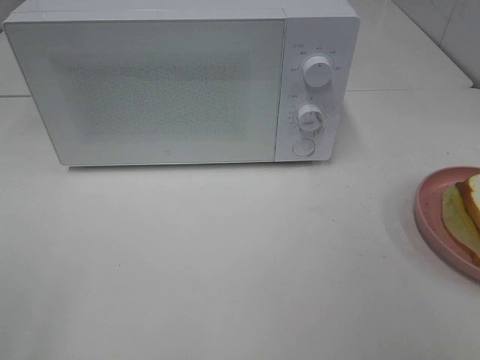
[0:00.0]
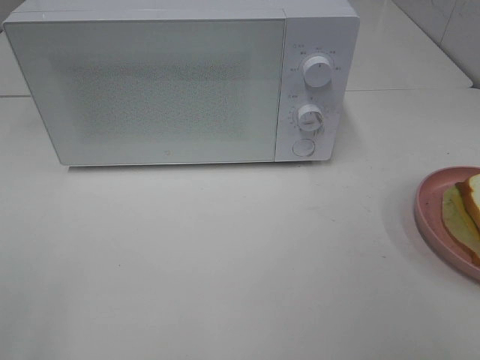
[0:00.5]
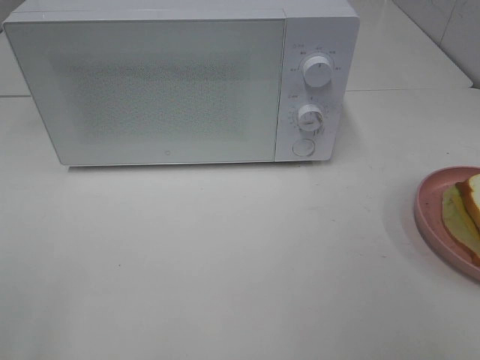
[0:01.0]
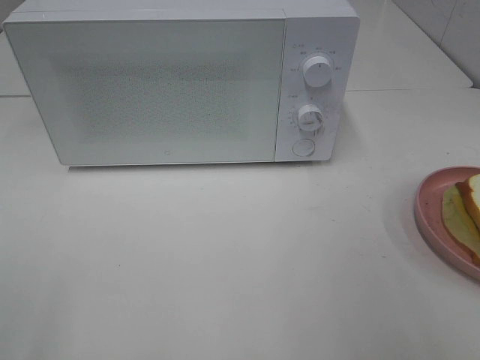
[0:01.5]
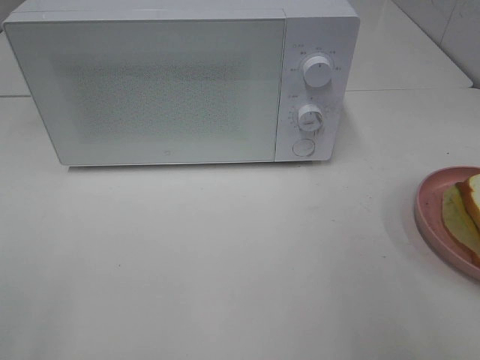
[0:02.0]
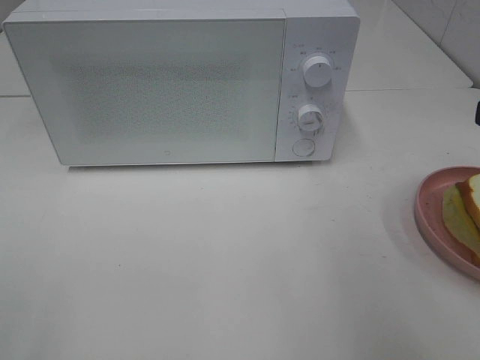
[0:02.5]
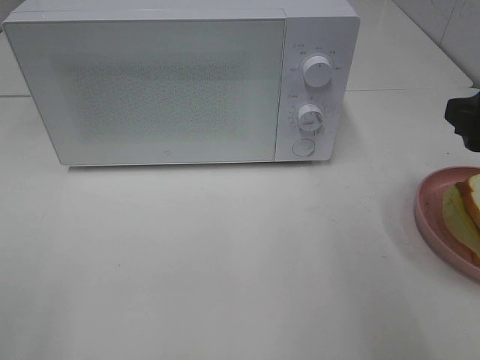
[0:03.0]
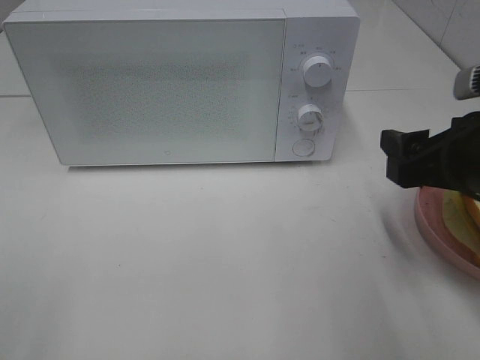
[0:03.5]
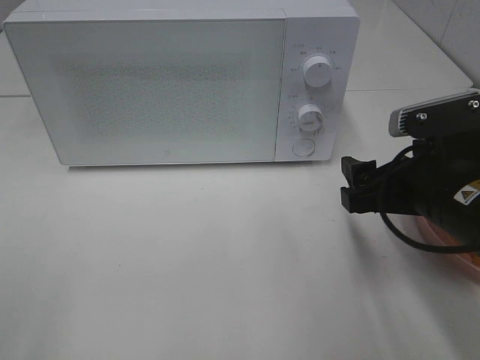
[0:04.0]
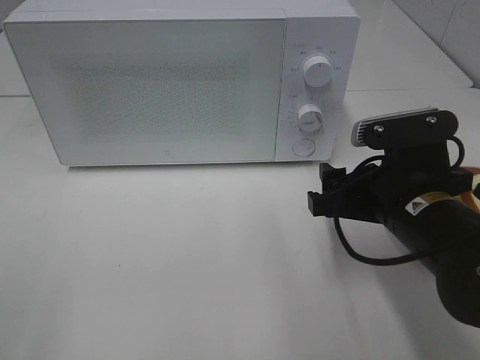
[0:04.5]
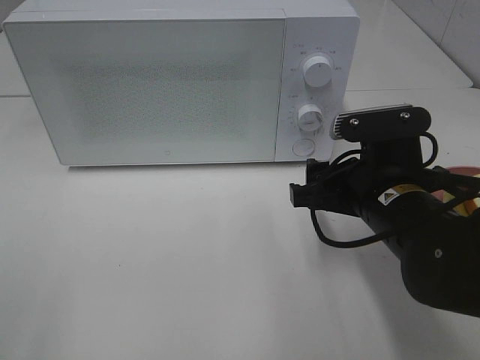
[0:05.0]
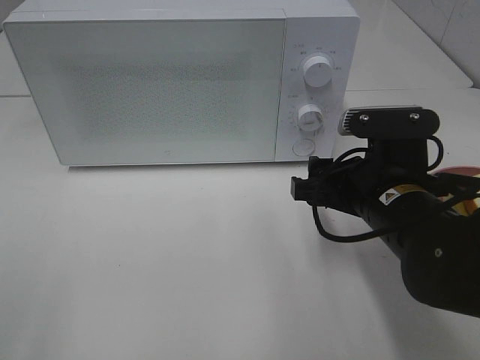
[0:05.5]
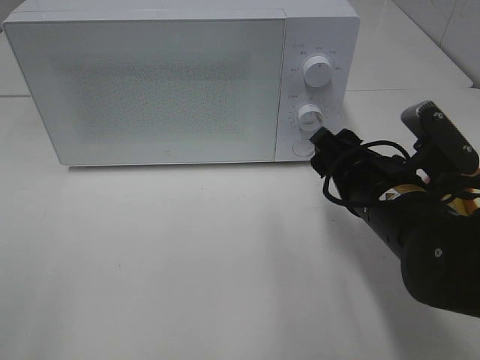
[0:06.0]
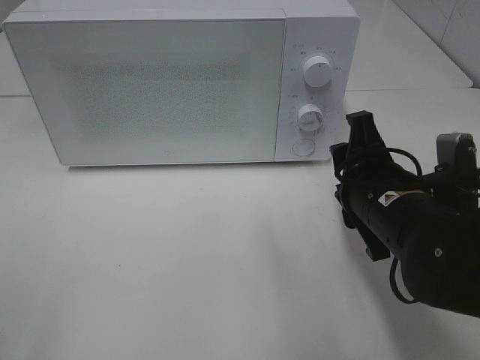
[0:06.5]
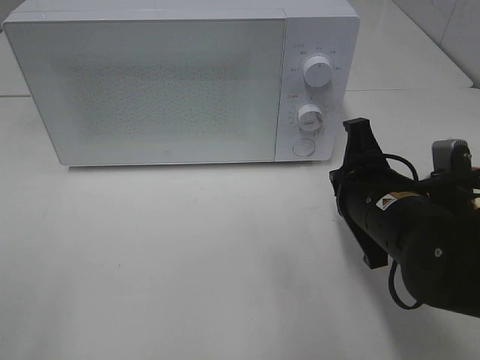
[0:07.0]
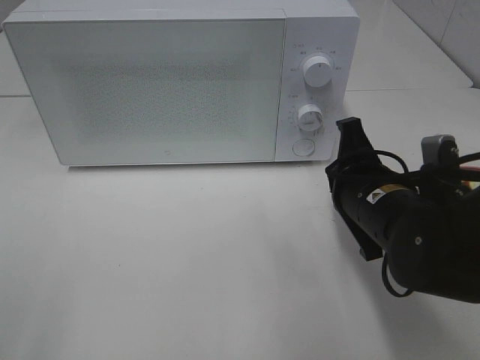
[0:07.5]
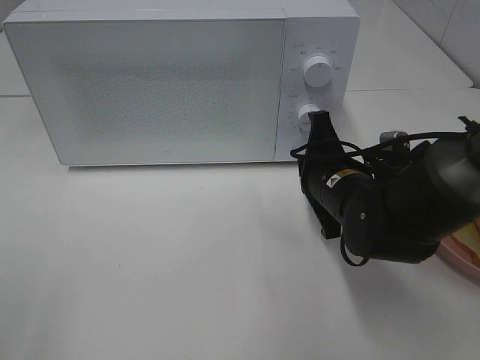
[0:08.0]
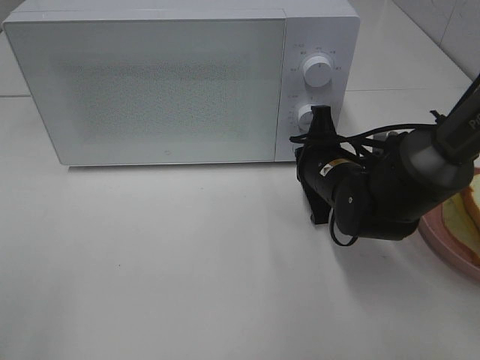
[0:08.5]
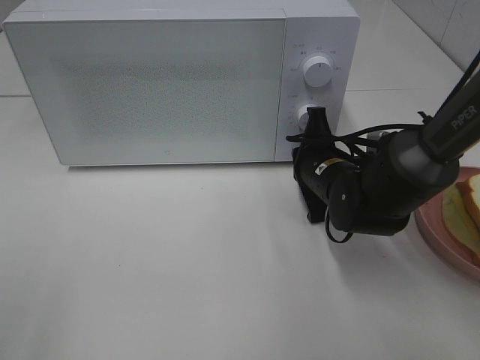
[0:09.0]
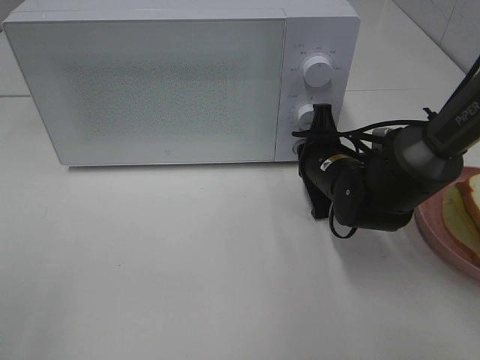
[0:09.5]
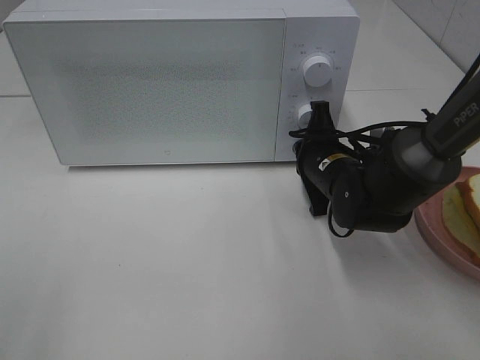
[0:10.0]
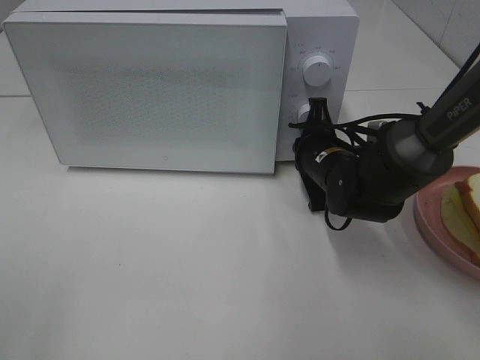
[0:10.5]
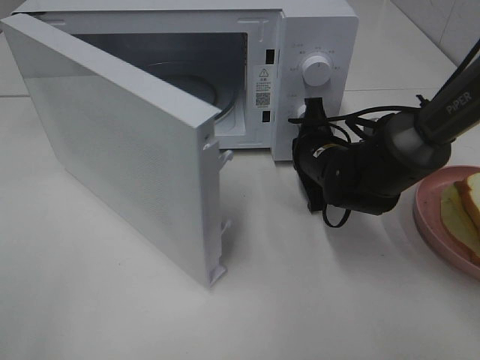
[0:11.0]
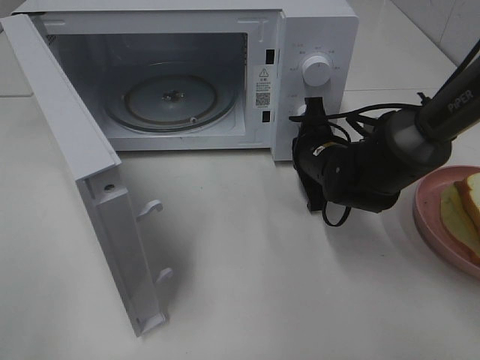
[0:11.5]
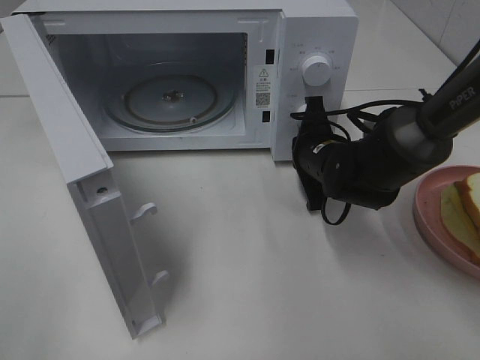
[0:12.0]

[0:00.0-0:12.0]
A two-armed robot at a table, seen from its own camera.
Task of the whole recording: Heat Sandwich.
0:02.0 to 0:04.0: The right gripper heads downward, forward and to the left, covering approximately 20 cm.
0:04.0 to 0:06.0: The right gripper ends up some 5 cm from where it was.
0:06.0 to 0:08.0: The right gripper shifts roughly 5 cm forward, and closes its fingers.
0:08.0 to 0:10.0: The right gripper is displaced forward by roughly 5 cm.

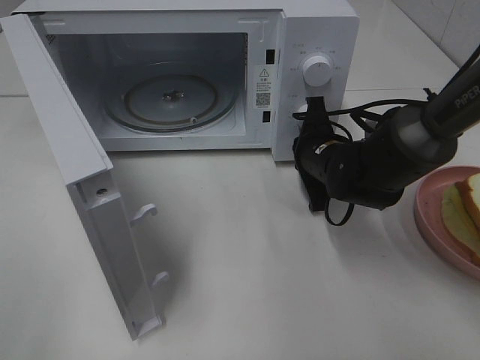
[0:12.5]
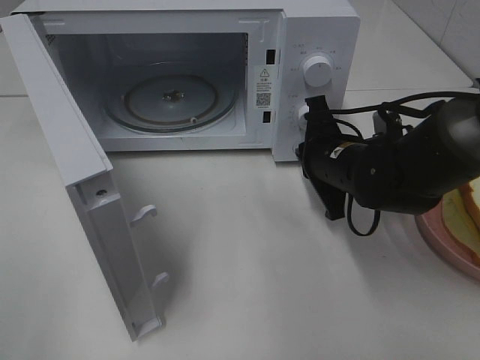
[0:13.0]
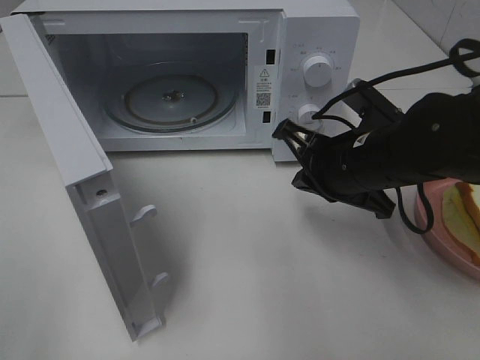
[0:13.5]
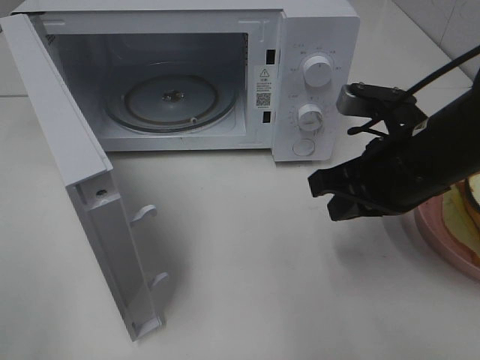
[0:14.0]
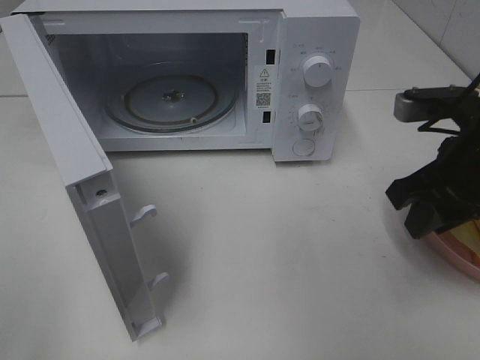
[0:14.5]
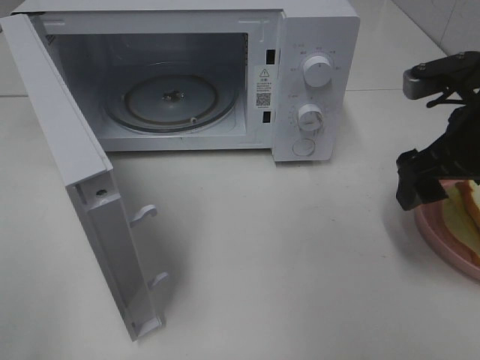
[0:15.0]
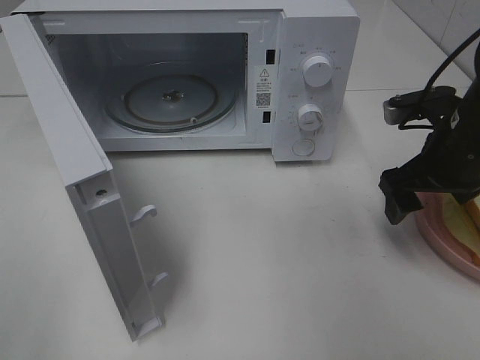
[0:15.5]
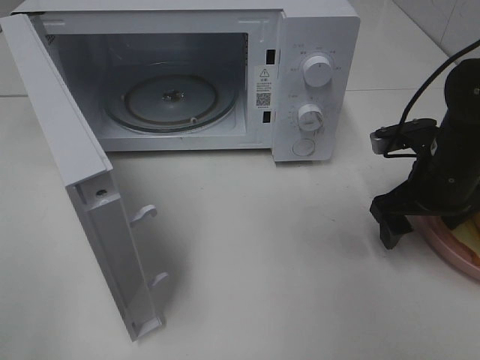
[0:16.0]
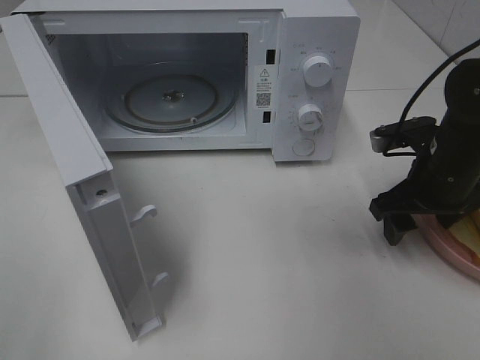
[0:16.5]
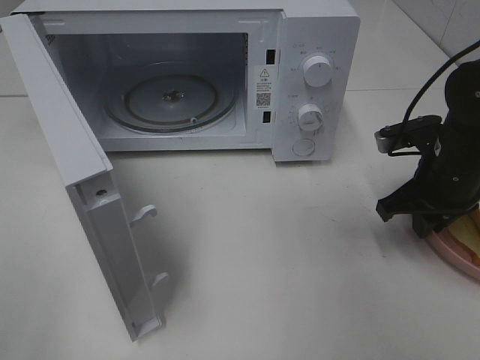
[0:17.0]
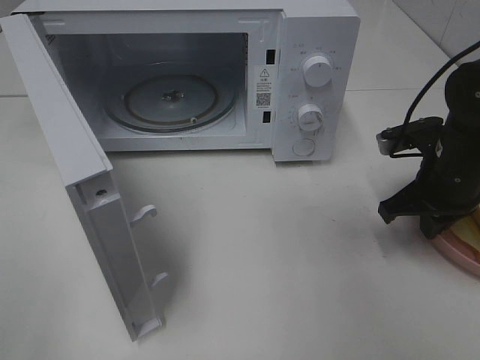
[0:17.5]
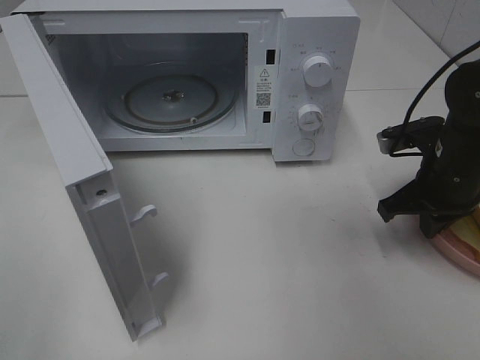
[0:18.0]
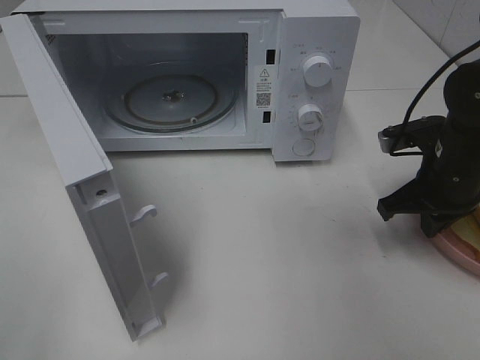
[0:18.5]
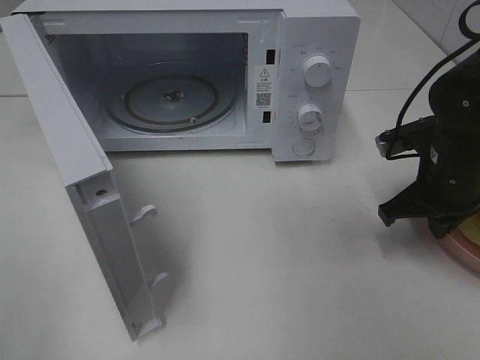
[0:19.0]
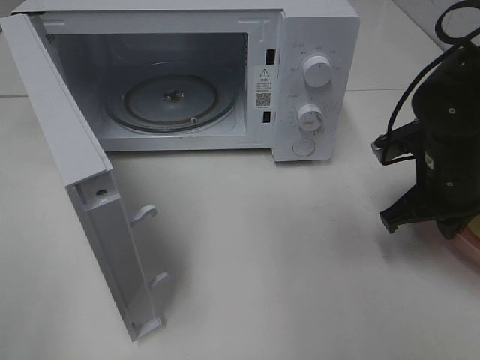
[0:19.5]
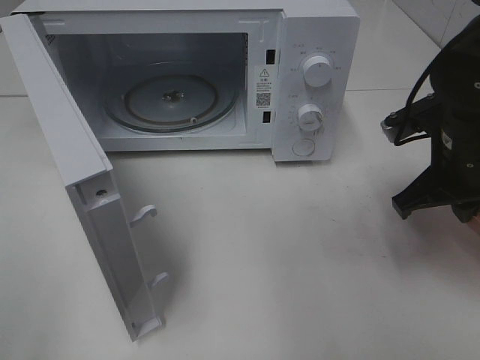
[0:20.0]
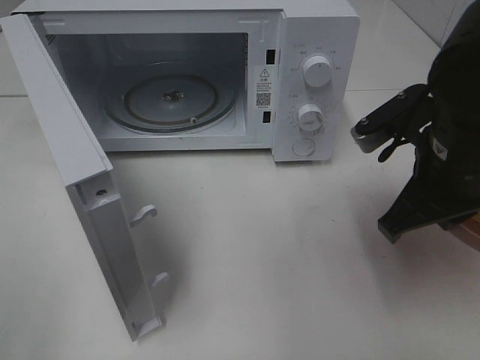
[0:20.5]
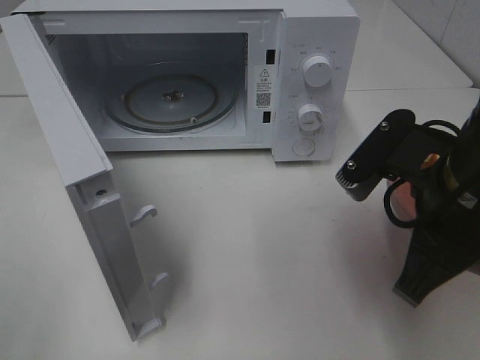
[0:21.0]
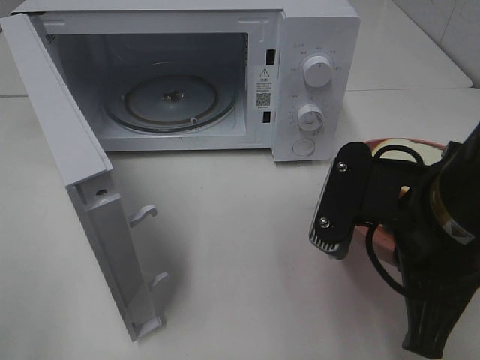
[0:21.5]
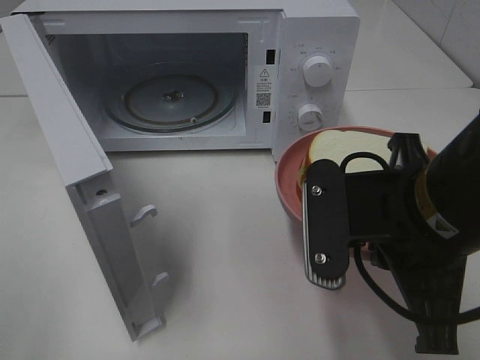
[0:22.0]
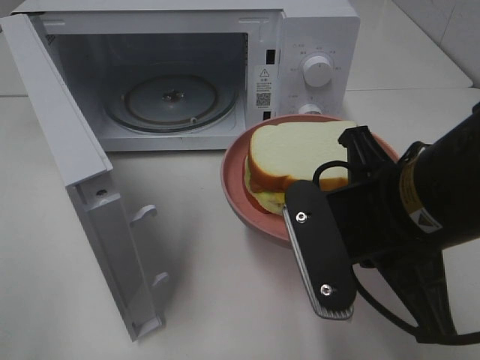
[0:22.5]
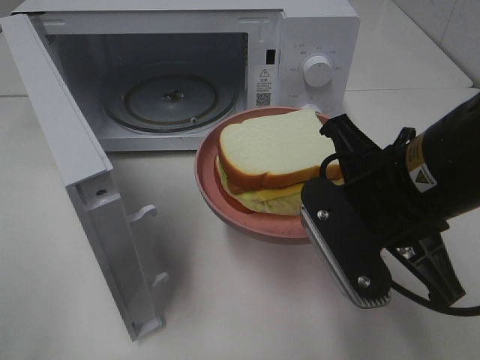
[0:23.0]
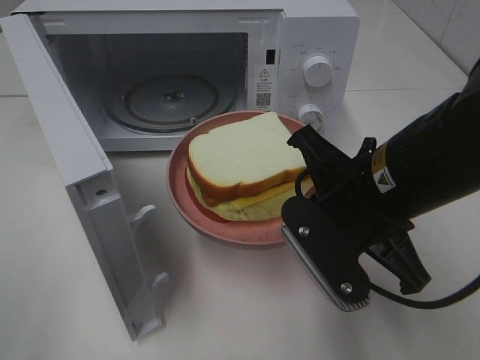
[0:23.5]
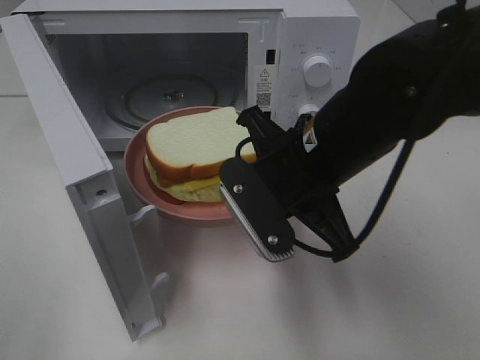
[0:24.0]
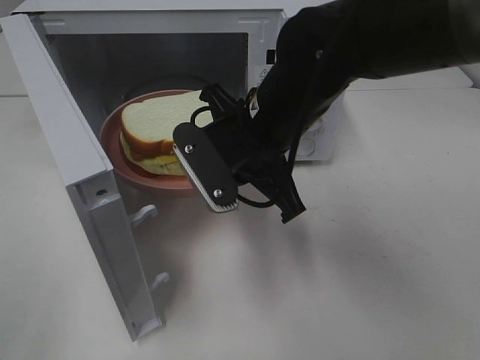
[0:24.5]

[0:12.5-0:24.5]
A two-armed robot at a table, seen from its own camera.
Task of the whole recording: Heat Sandwich.
Step, 0:13.5 to 0:18.5: Right hand: grab the plate with the sandwich.
0:12.5 to 0:14.5: The right gripper goes roughly 20 cm upward, backward and to the right, and opens its fingers.
0:14.5 to 0:16.5: The right gripper travels downward and forward by roughly 10 cm, and opens up.
0:16.5 to 0:18.5: The right gripper closes.
0:18.5 to 0:20.5: The right gripper is displaced backward, upward and to the left by about 10 cm.
0:20.5 to 0:22.5: The right gripper moves backward and to the left, approximately 10 cm.
0:22.5 to 0:24.5: The right gripper goes some 15 cm forward and to the left.

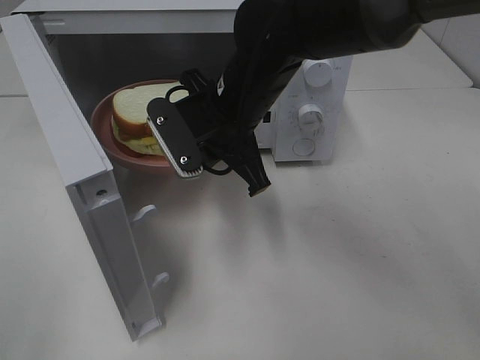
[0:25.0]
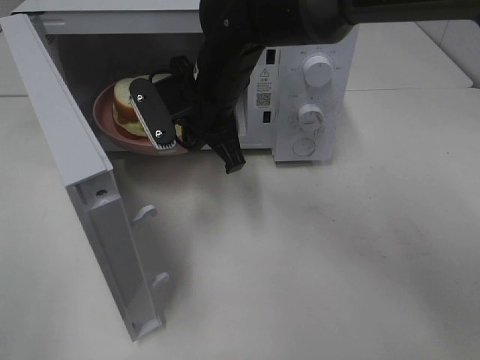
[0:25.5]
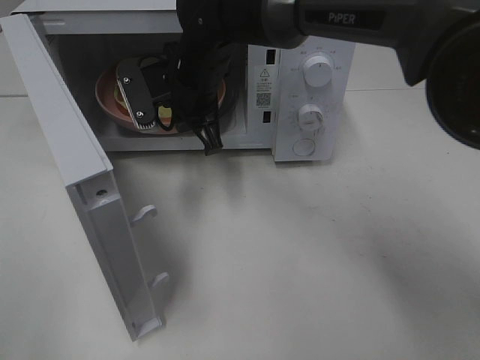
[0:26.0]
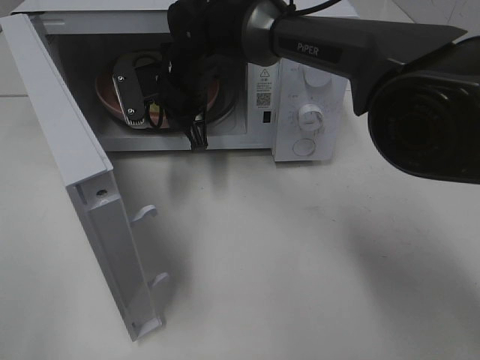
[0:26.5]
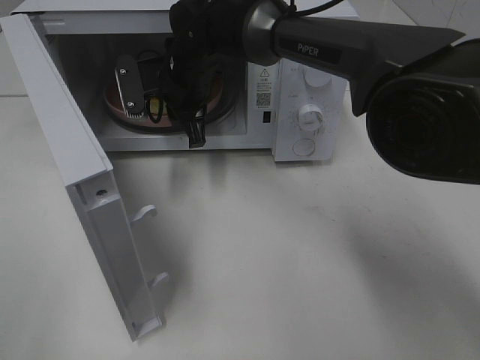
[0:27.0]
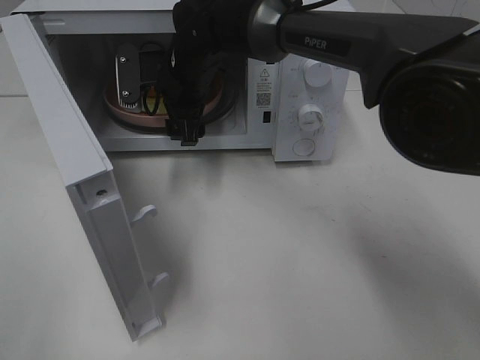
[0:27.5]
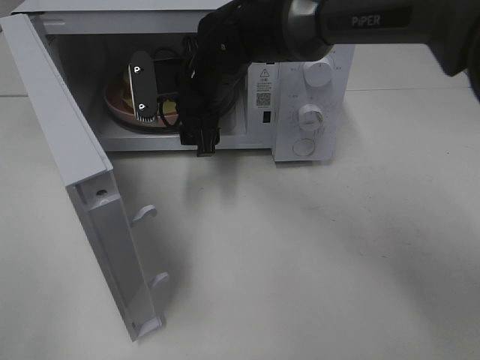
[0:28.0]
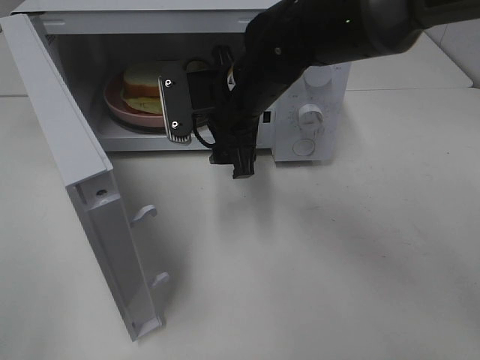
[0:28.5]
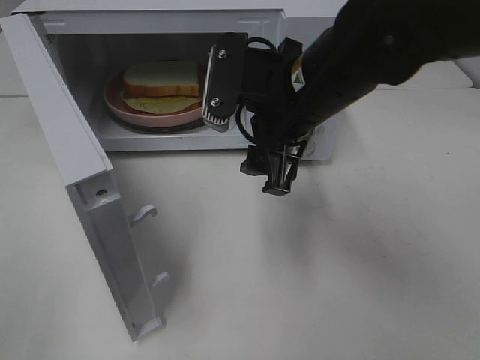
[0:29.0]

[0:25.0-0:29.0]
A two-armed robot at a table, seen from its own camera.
Task of the whole recording: Heat Sandwich.
Step, 0:25.0 to 0:28.0: Right hand: place the plate in the microwave.
0:25.0 to 0:27.0: The right gripper travels forward and to the left by about 10 cm, and opens up.
0:27.0 to 0:29.0: The right gripper heads backward and to the right, covering about 20 cm, and opens its fingers.
